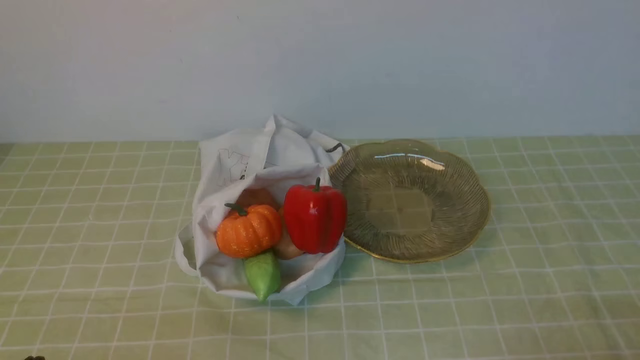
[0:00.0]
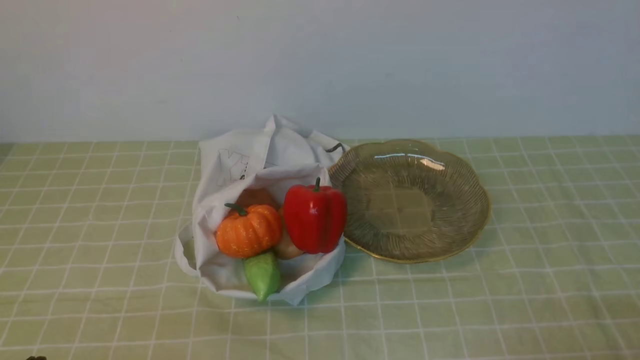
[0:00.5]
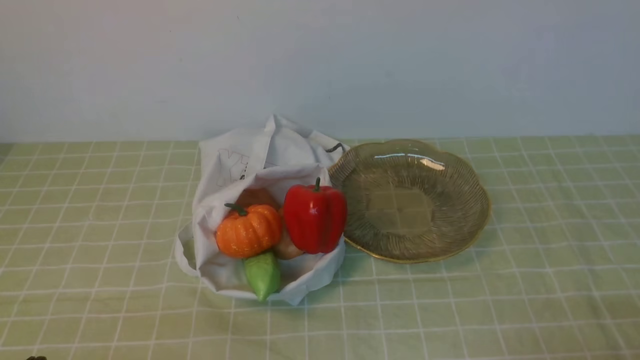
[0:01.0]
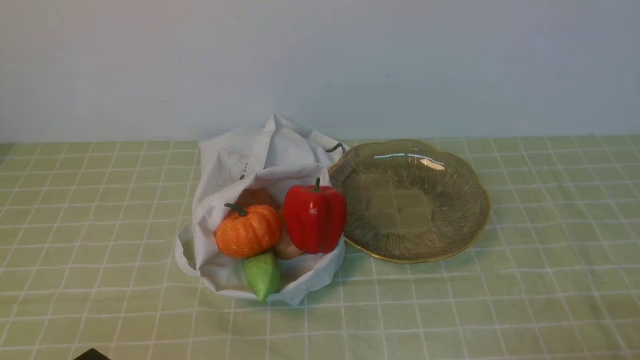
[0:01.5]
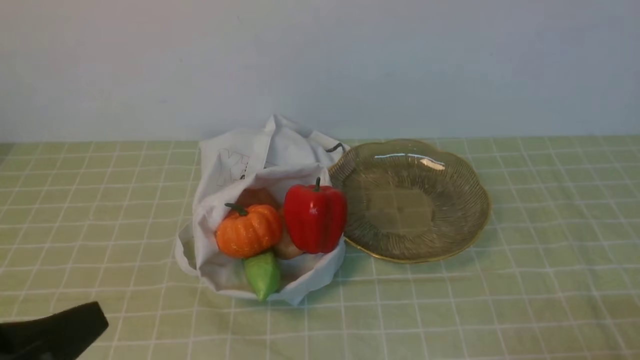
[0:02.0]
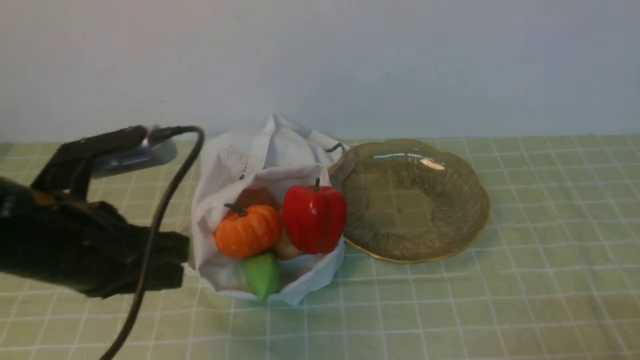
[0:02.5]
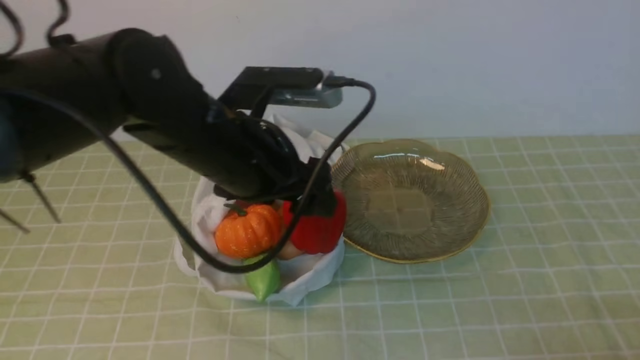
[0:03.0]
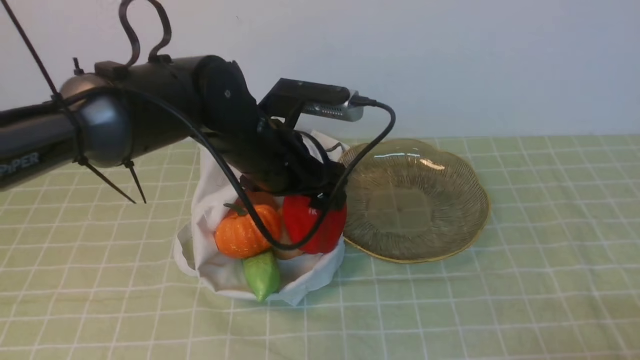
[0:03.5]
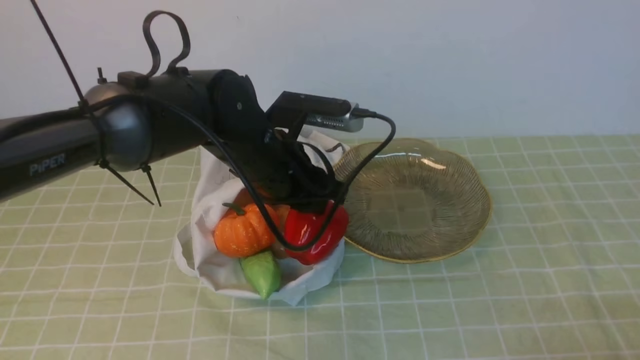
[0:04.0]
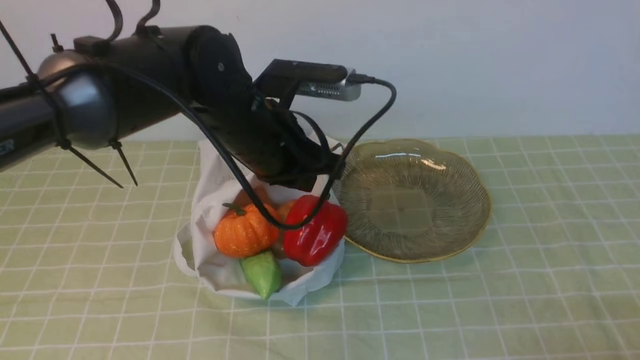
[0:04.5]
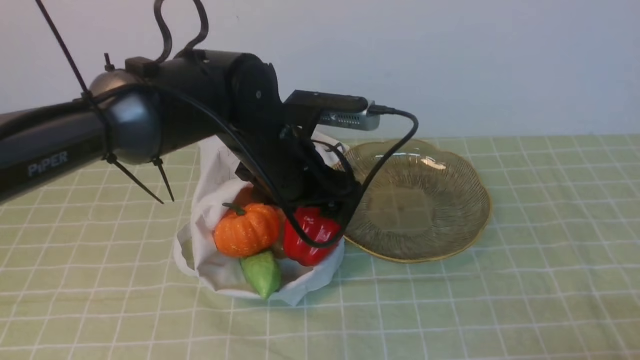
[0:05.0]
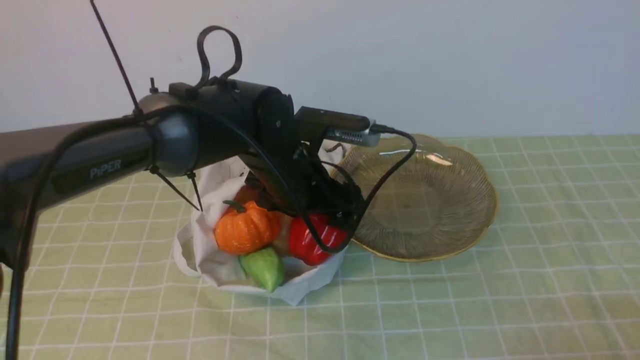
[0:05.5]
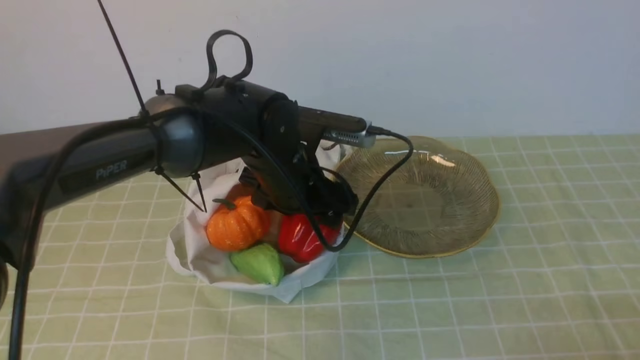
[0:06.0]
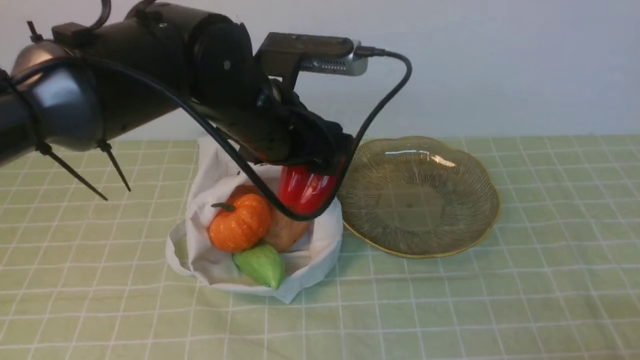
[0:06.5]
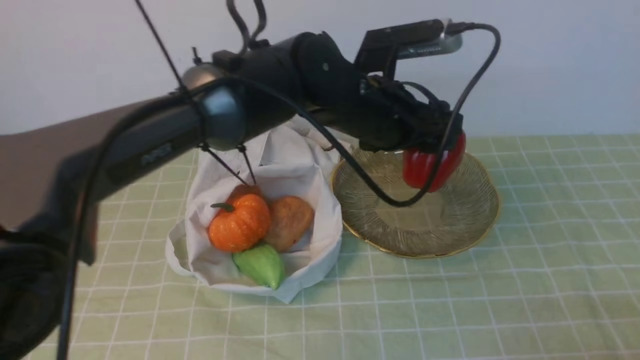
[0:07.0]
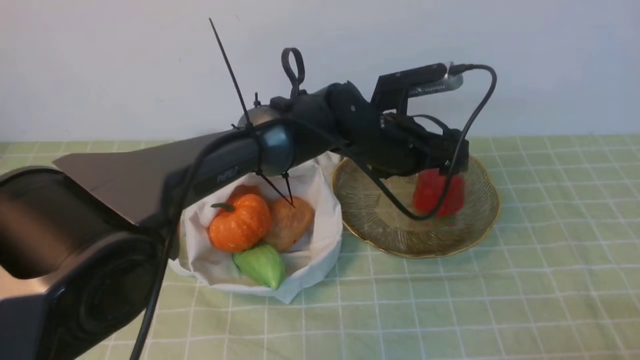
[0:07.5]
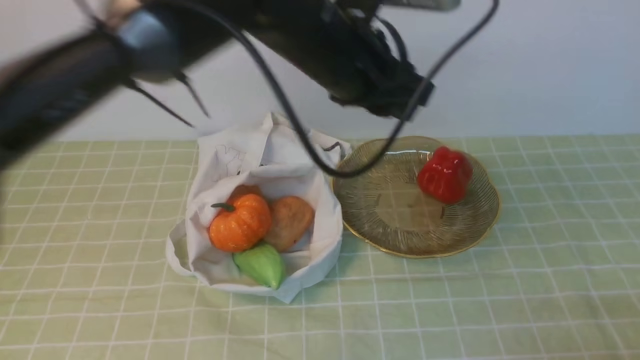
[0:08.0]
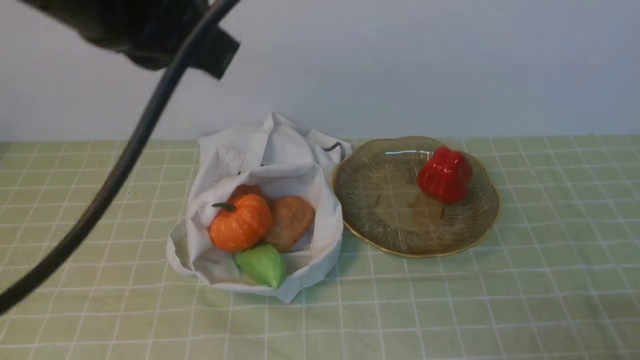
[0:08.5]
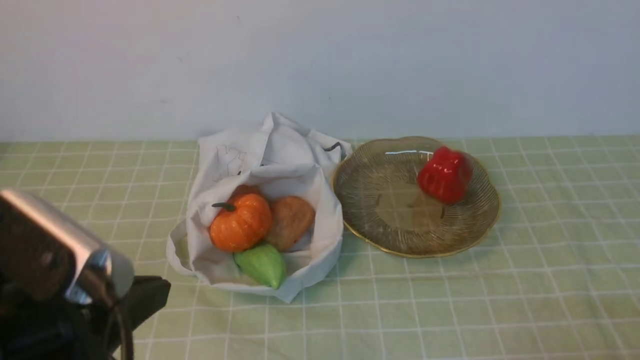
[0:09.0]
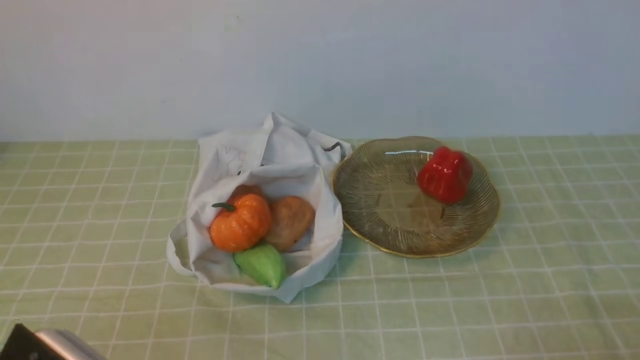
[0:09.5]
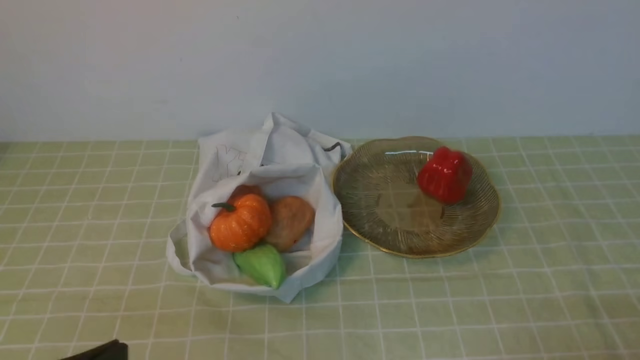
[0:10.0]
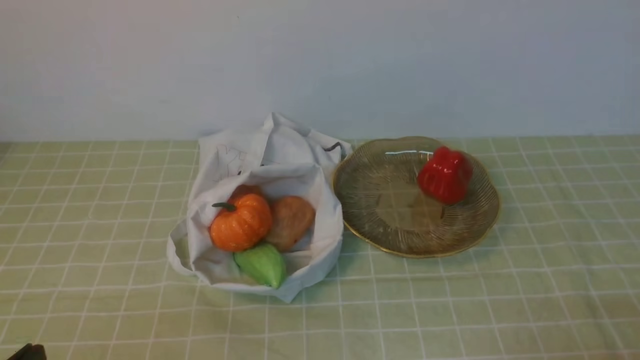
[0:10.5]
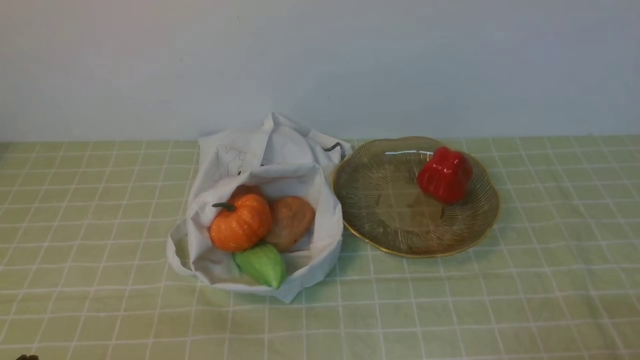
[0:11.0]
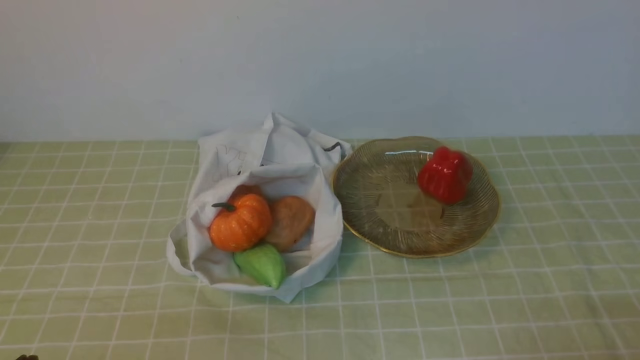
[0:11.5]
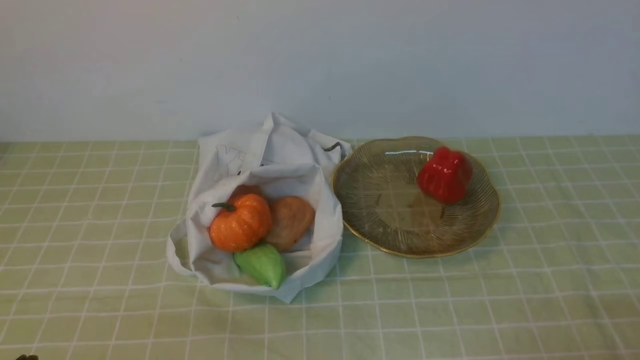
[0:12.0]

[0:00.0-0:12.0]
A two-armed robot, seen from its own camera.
Task of the whole recording: take vegetables from bag on green coffee tablecloth place on plate.
Step, 0:00.0 to 0:05.5: Grasp the bell pepper with left gripper.
Step, 0:06.0 to 0:07.5: Place the bell pepper on the plate with left gripper.
0:02.0 to 0:04.0: The left gripper shifts roughly 35 cm forward and to the right, and opens.
0:04.0 to 0:06.0: The left gripper closes, then reopens.
0:06.0 to 0:08.0: The left gripper goes about 10 cm upward and to the right.
0:08.0 to 0:10.0: The left gripper is displaced backward and to the left by about 40 cm, and closes its fingers.

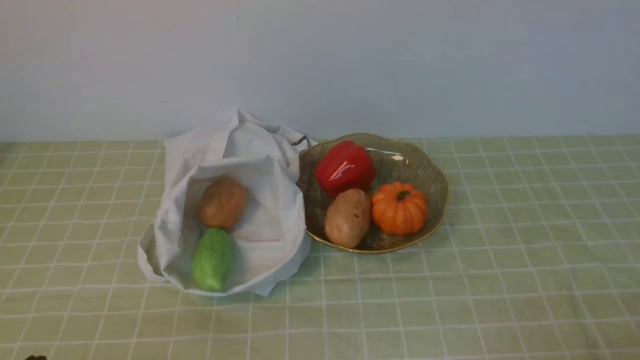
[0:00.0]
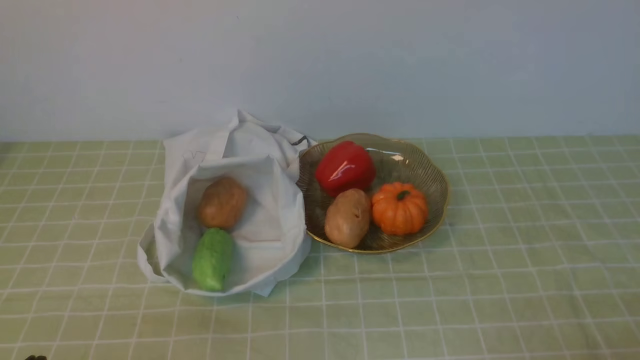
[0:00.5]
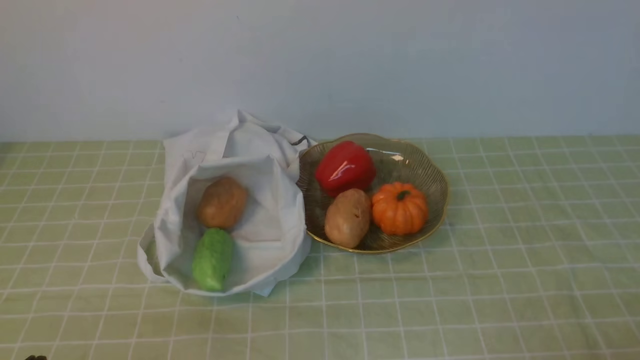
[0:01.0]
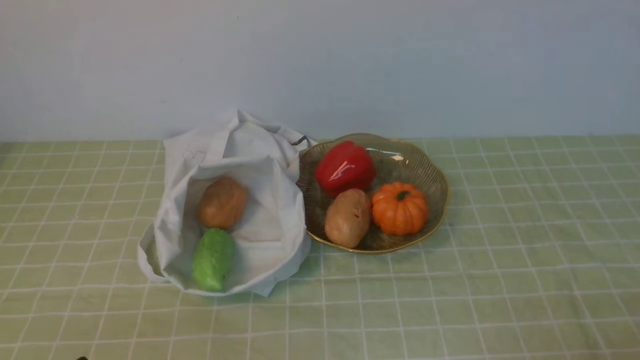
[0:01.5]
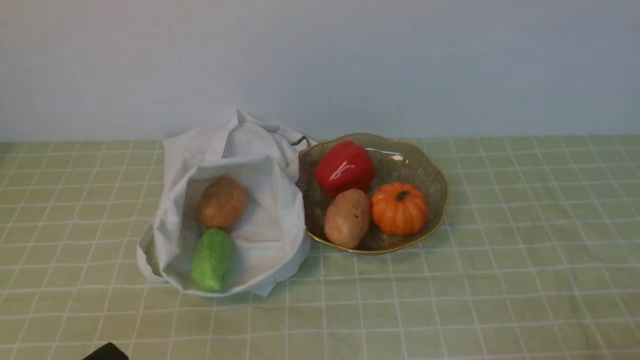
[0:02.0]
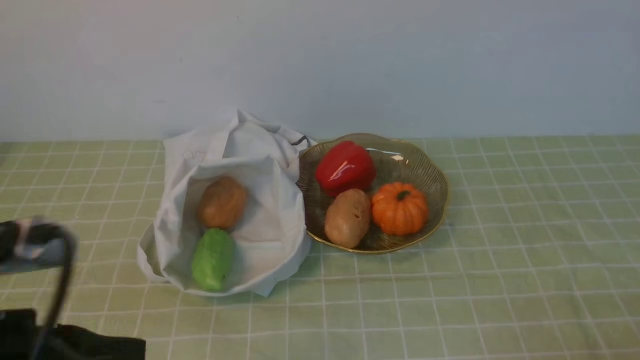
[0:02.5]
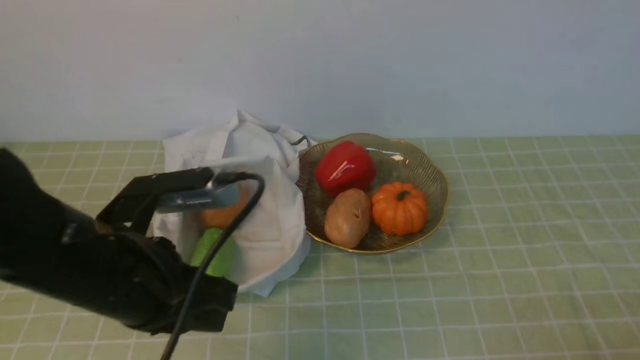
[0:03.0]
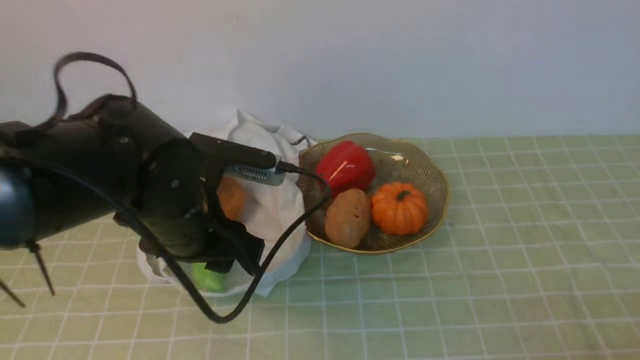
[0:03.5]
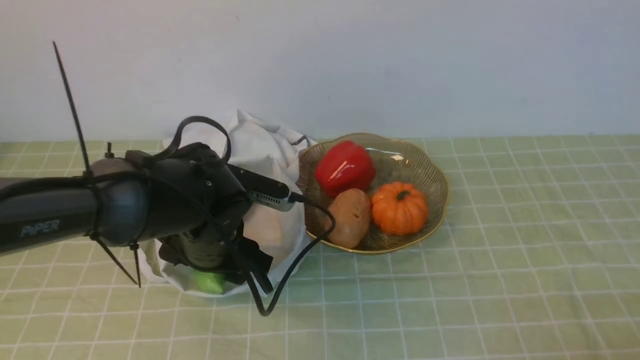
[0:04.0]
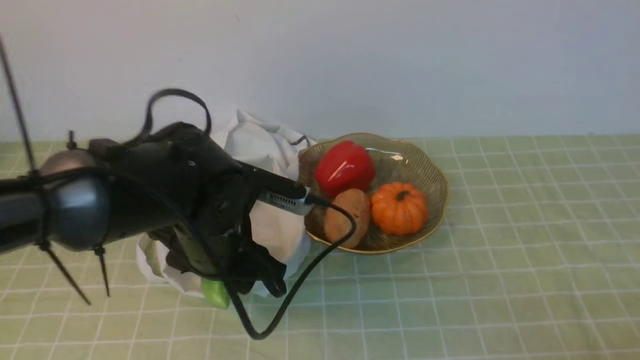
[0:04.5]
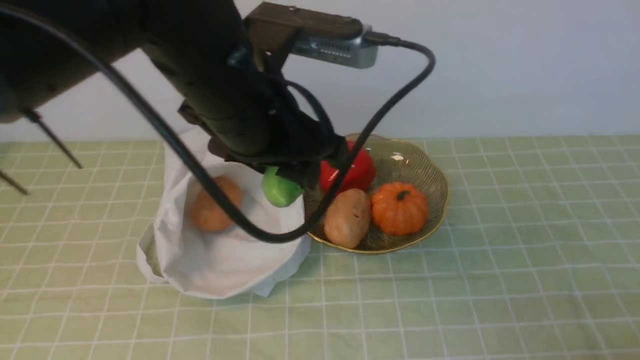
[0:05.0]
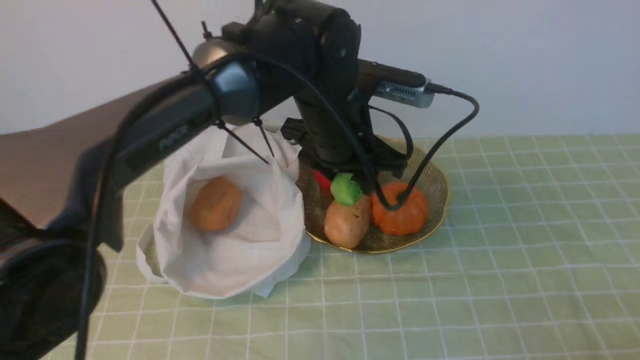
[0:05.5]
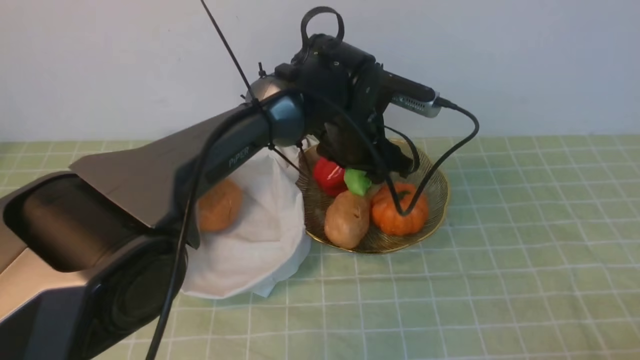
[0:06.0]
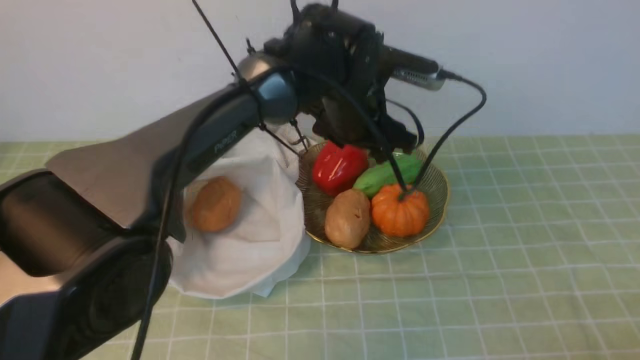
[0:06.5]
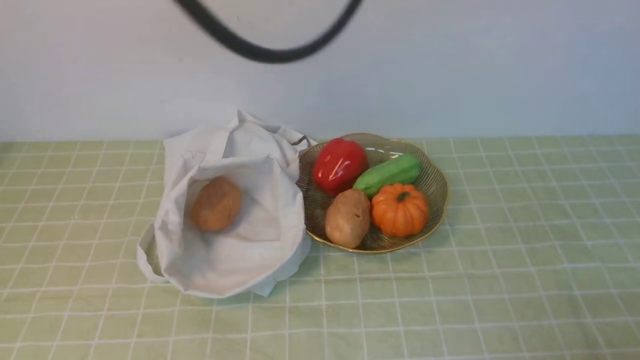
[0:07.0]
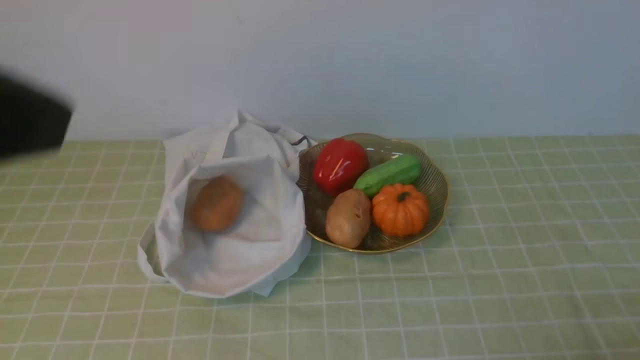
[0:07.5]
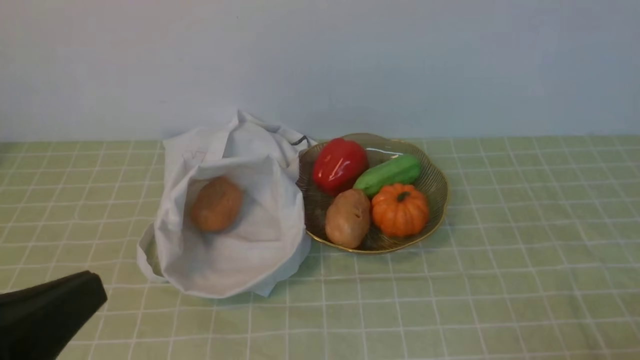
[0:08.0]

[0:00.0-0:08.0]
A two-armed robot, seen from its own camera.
Task of the whole recording: take vegetables from bag on green coffee tablecloth place on plate.
Step, 0:00.0 to 0:04.0: Grasp the bitter melon with left gripper.
Step, 0:04.5 to 0:06.0: Place the bitter melon on the plate with left gripper.
0:02.0 to 0:04.0: The left gripper goes some 30 cm forward and to the right, and opens.
0:04.0 to 0:06.0: The left gripper goes about 20 cm to the right and forward, and goes upward and returns, roughly 15 cm each way.
0:06.0 to 0:08.0: The left gripper travels backward and to the left by roughly 40 cm, and closes its fingers.
